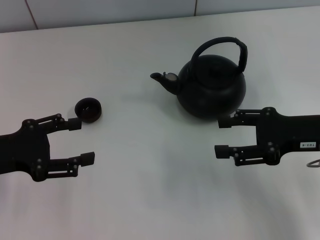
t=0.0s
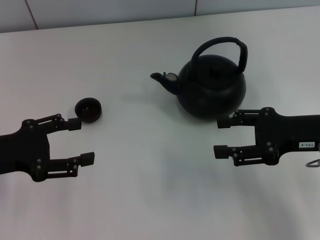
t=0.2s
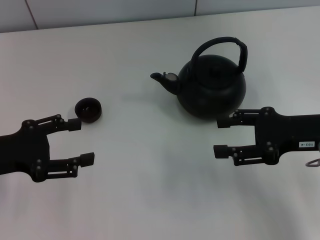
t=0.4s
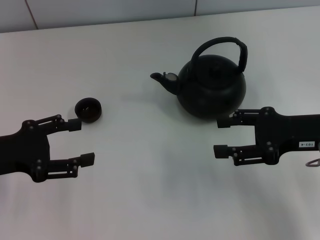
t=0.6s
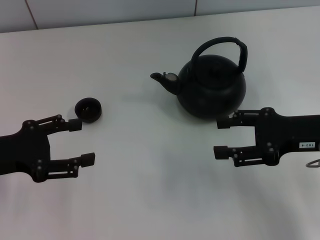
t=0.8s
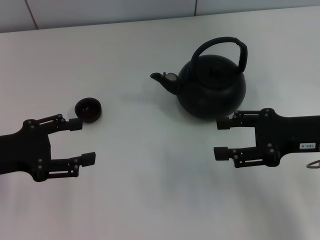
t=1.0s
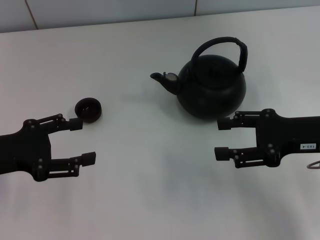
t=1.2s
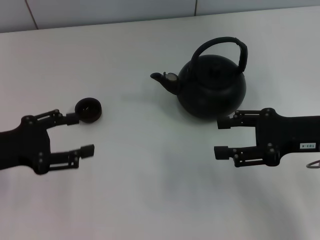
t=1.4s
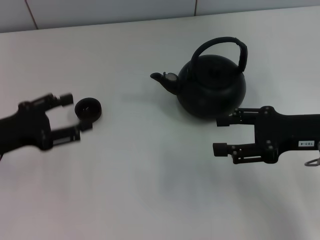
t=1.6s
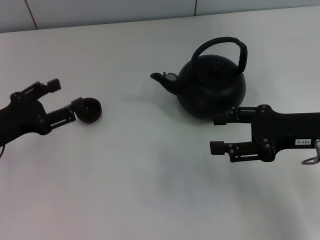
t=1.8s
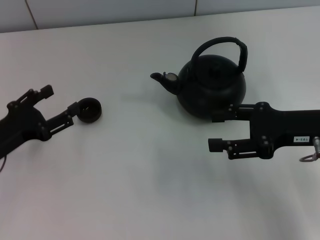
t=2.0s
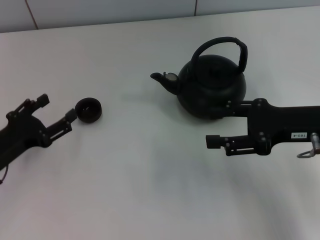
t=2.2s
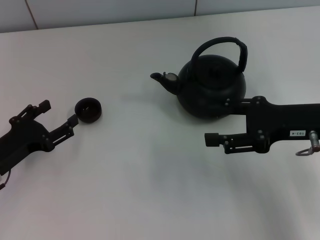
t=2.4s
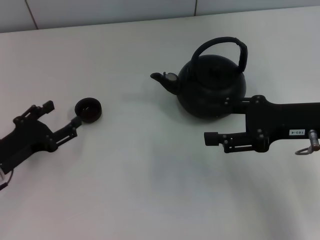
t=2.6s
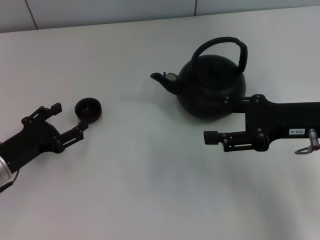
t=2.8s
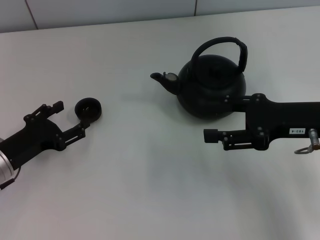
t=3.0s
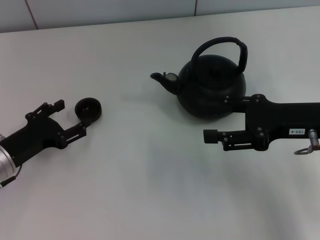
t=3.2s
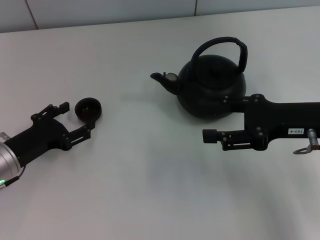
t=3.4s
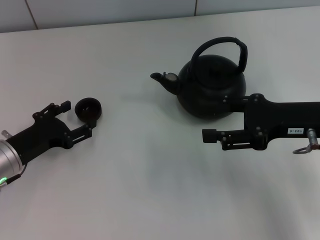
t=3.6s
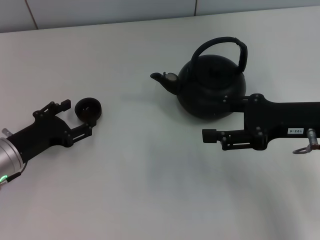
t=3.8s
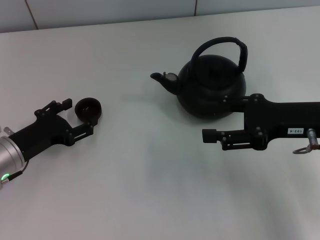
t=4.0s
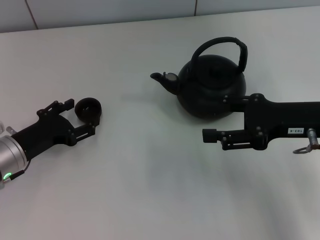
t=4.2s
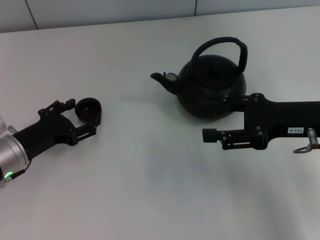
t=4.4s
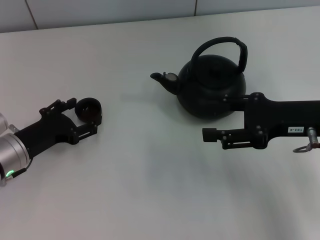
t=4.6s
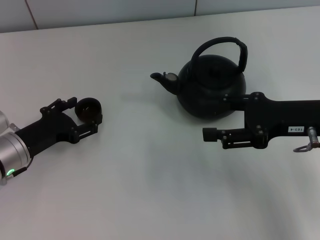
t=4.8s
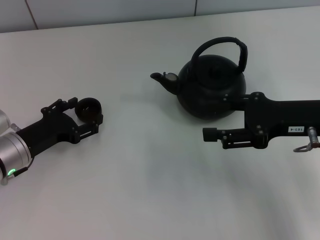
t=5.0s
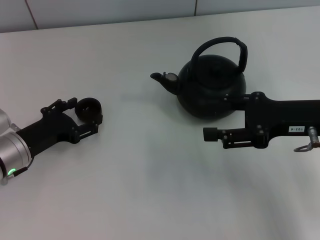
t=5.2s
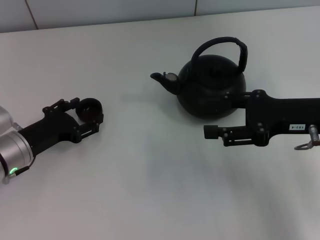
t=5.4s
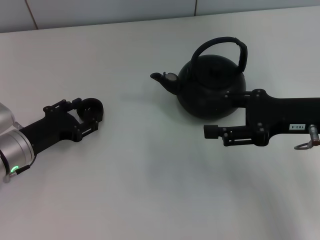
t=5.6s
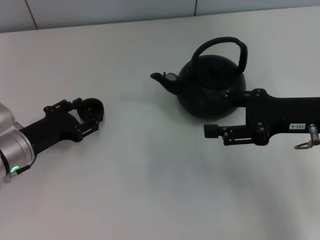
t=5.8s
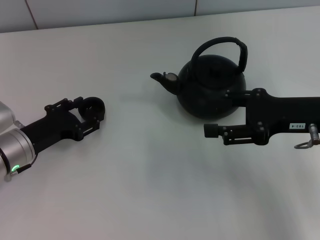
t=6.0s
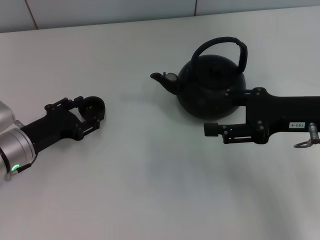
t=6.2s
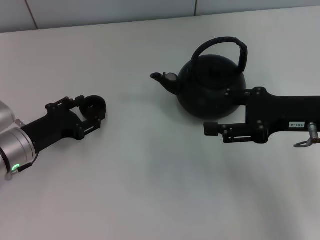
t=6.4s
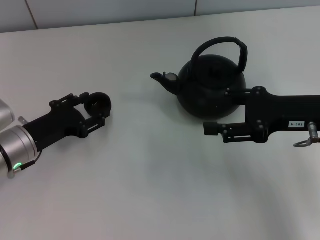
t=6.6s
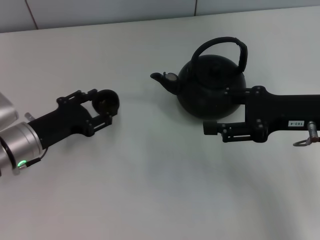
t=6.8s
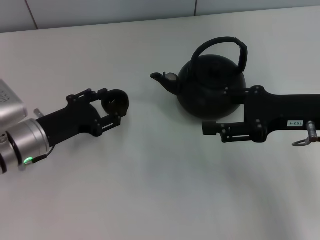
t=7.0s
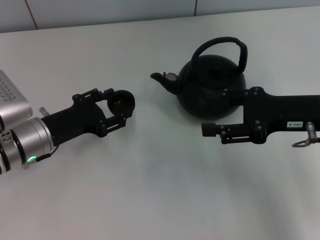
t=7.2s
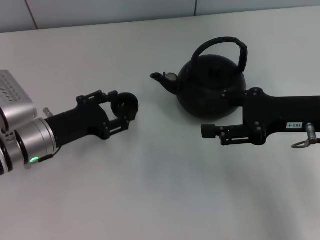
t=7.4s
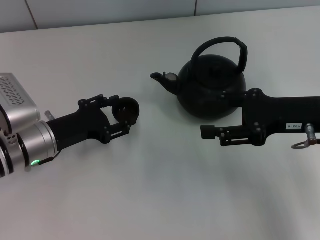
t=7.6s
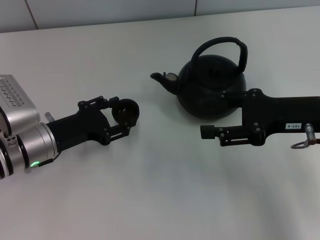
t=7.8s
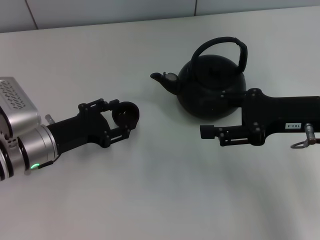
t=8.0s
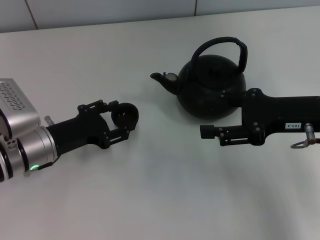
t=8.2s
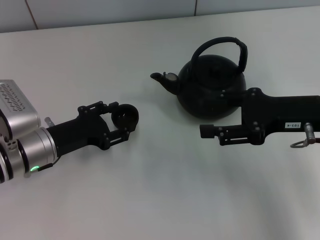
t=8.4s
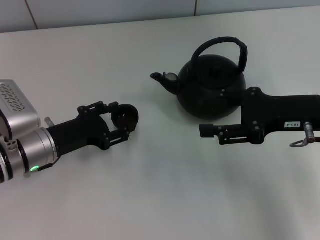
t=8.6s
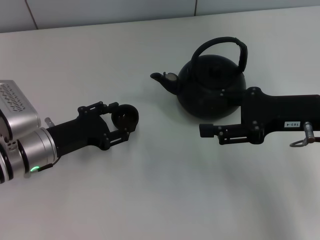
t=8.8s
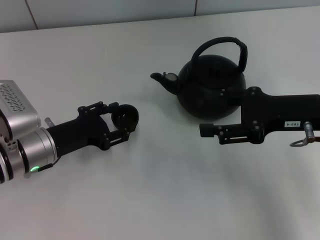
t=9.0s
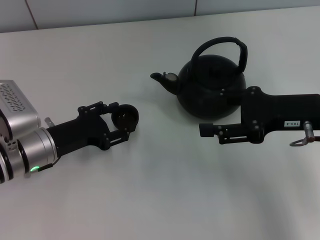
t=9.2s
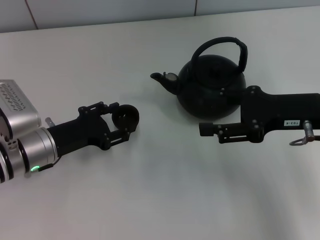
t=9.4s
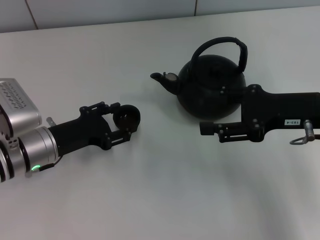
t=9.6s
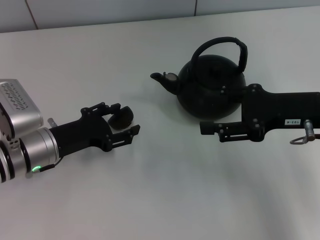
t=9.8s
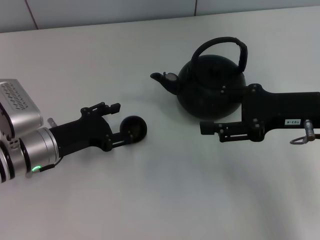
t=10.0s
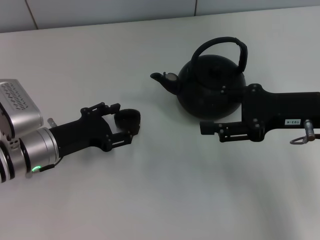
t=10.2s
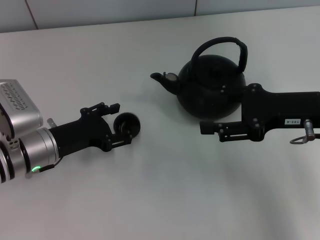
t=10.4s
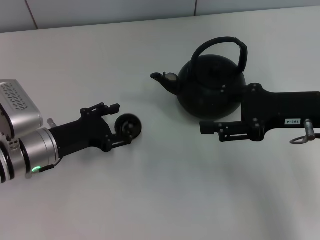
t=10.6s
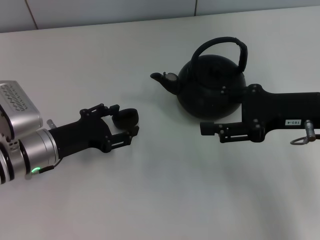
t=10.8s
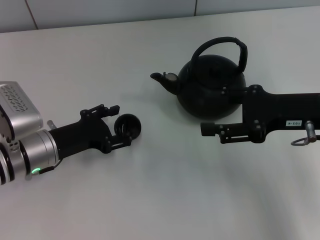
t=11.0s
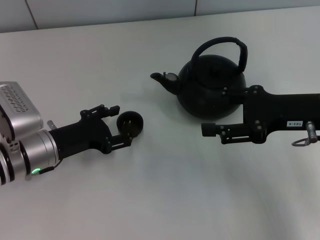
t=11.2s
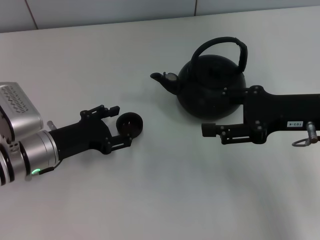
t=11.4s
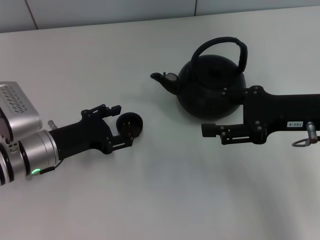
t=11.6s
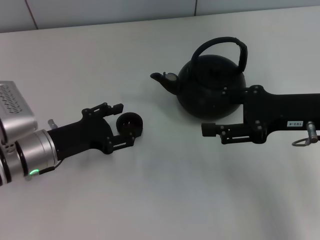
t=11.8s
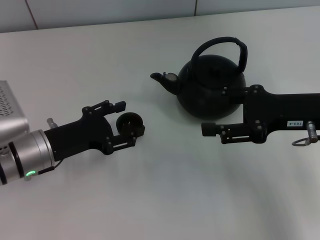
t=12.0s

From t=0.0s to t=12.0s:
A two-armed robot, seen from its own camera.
Task of the whole recording: Grasp the handle of the teapot with one hand and pour tea into the teacup.
Step, from t=0.0s to t=6.6s: Pick up the teacup with the left gripper.
Step, from t=6.8s to t=11.8s: Place the teacup in the center of view with the left gripper.
From t=0.0s to t=1.6s: There are only small adjustments of the grippers.
From t=1.6s to t=3.0s: The left gripper shifts roughly 10 cm downward.
From t=3.0s to t=4.4s: The grippers move only a little.
From t=4.4s to t=6.0s: The left gripper closes its fingers.
From t=6.0s to t=7.6s: The grippers make only small movements.
From t=7.6s to t=9.0s: Both grippers stay put.
From t=9.0s to t=10.4s: The left gripper opens its fingers.
From t=10.4s to t=12.0s: The grippers move only a little.

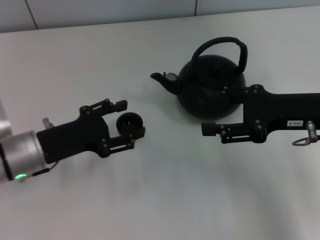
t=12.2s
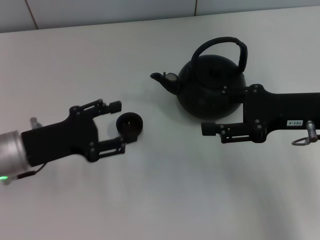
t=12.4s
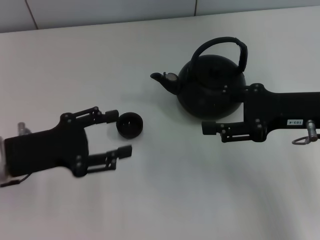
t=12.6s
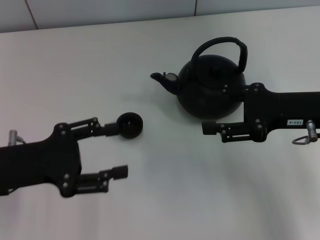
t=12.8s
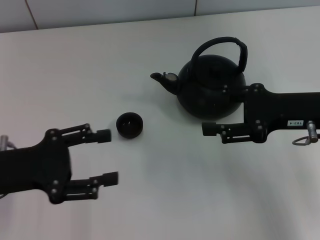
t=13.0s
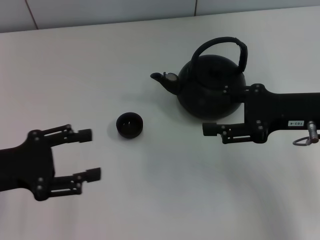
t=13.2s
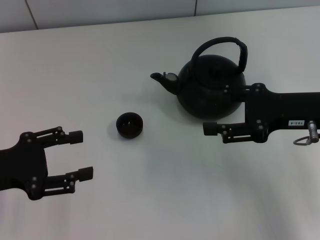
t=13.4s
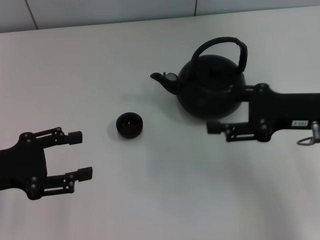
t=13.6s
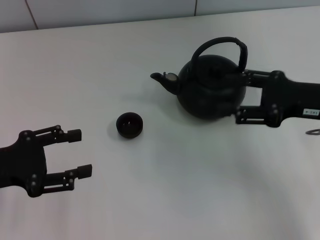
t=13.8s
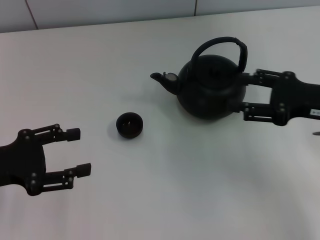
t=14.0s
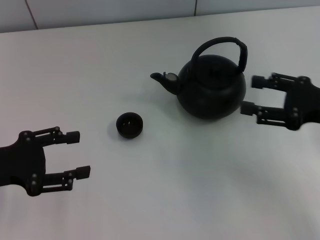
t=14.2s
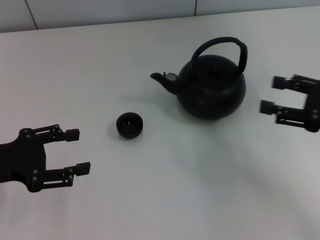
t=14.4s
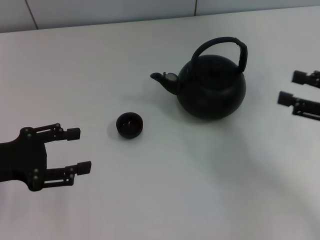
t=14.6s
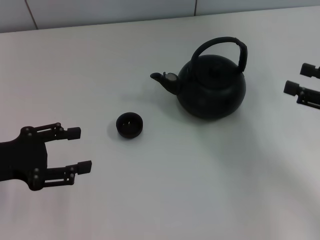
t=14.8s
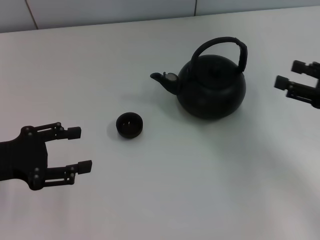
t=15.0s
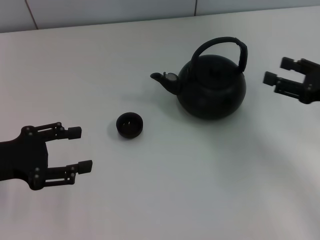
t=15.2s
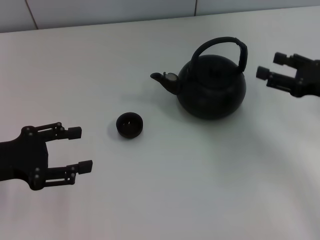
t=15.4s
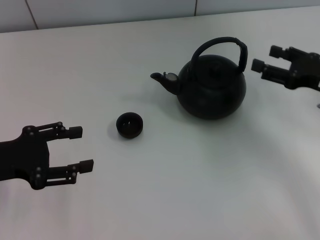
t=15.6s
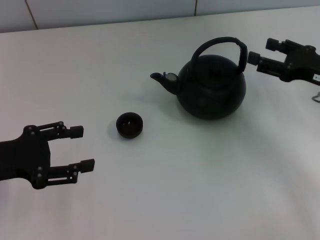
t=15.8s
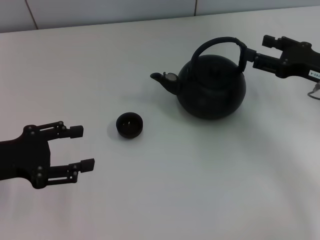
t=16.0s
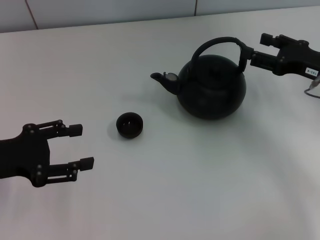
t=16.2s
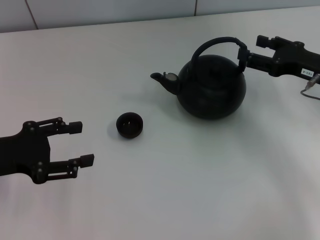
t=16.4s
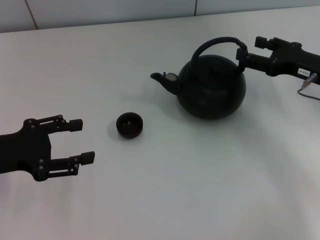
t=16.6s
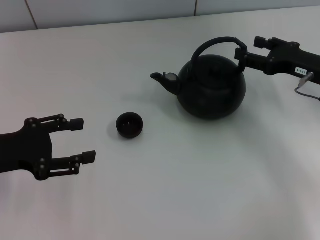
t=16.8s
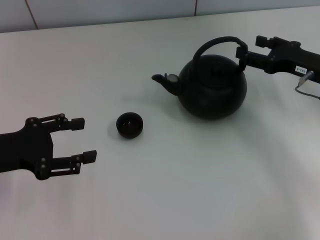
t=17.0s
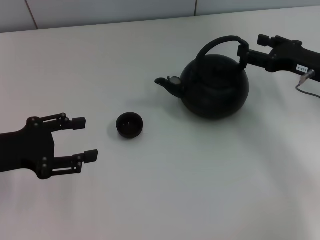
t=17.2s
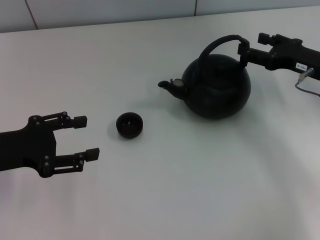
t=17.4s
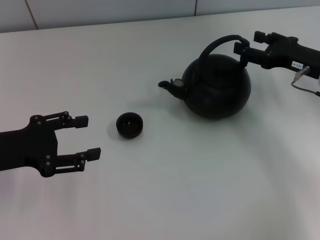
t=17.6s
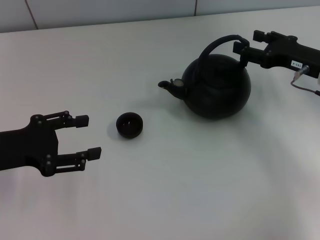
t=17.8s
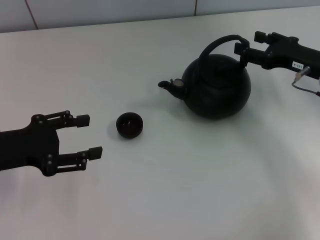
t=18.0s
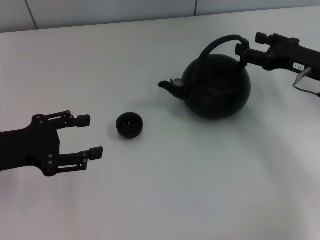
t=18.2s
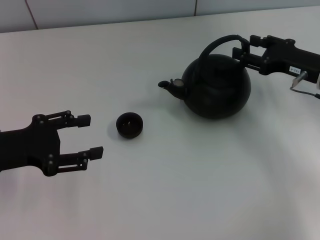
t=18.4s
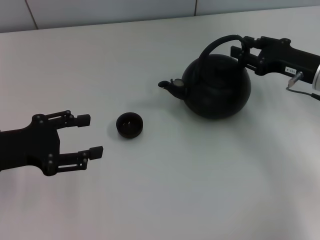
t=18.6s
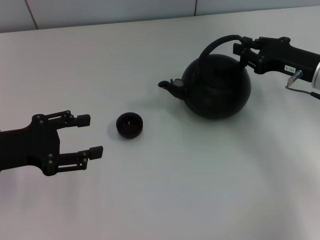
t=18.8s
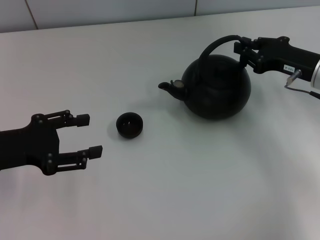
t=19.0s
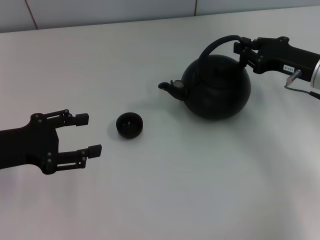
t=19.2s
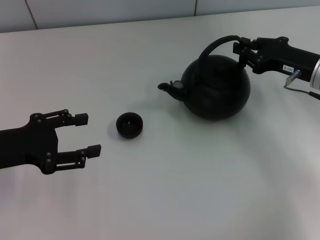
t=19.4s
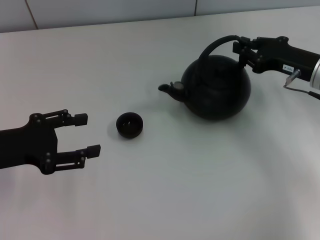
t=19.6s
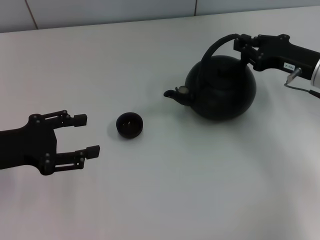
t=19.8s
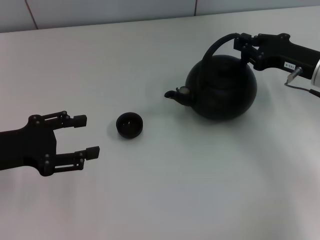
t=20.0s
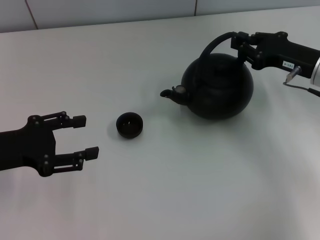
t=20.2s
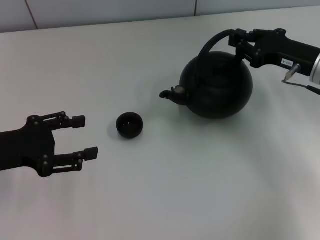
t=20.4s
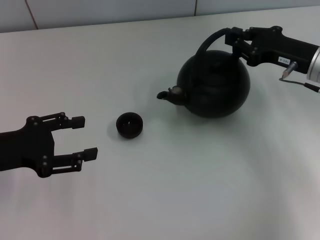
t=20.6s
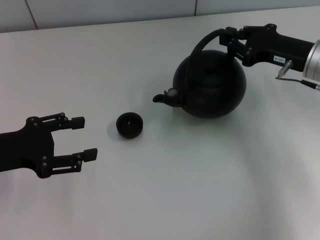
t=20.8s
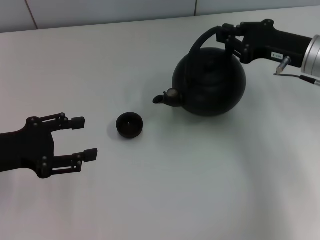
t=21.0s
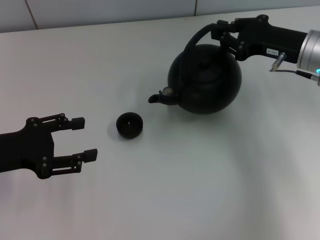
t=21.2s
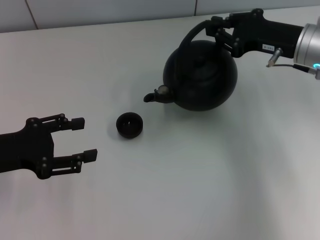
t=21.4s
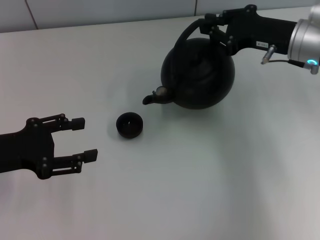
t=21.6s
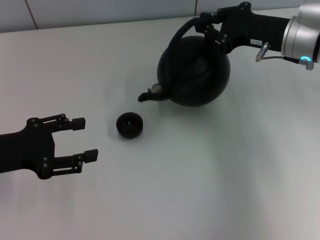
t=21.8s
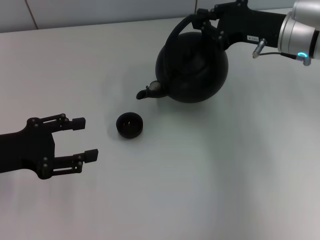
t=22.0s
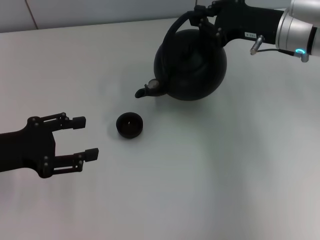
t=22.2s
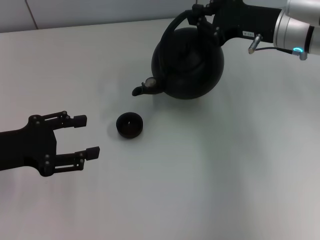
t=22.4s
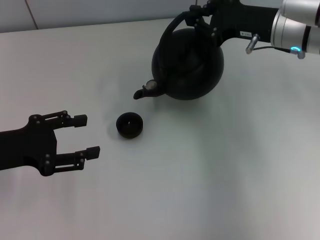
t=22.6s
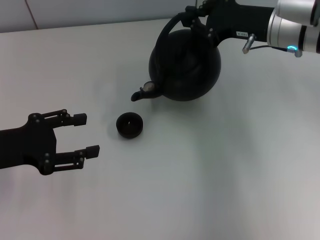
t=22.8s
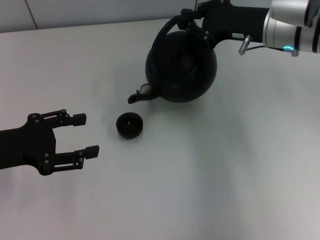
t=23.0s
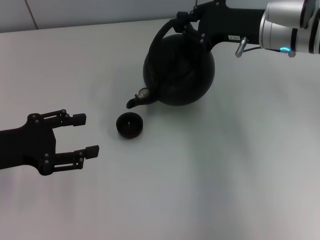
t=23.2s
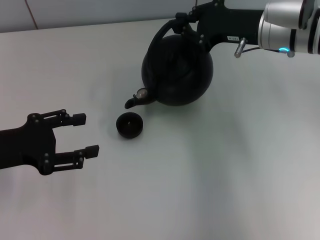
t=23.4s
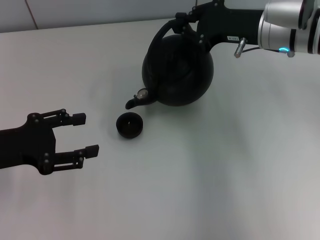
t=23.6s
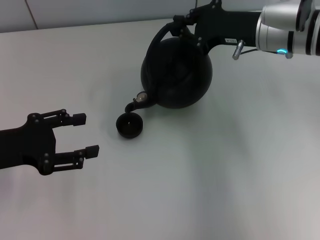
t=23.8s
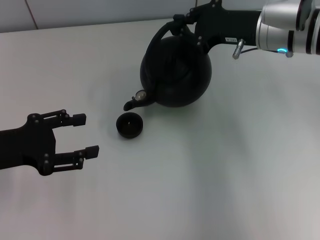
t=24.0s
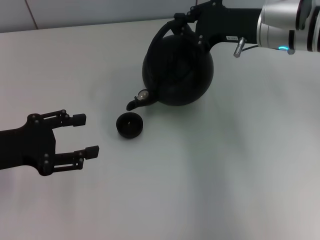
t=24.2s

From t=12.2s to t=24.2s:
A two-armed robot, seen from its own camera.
Task of the whole recording: Grasp the handle of the teapot with one hand and pour tea into the teacup.
Step, from t=12.2s to t=20.6s: Pick up the teapot with the right gripper.
From t=12.2s to t=13.8s: The left gripper moves to the left and upward, about 10 cm.
From t=13.8s to t=15.2s: The right gripper shifts some 5 cm to the right.
From t=15.2s to t=16.6s: The right gripper heads forward, covering approximately 5 cm.
From t=16.6s to t=18.2s: The grippers move only a little.
From t=18.2s to t=19.8s: The right gripper closes its fingers.
From t=19.8s to t=21.2s: The grippers move only a little.
From t=21.2s to t=22.6s: The right gripper changes place by roughly 5 cm.
From t=22.6s to t=24.2s: The grippers stay close to where they were, moving slightly.
